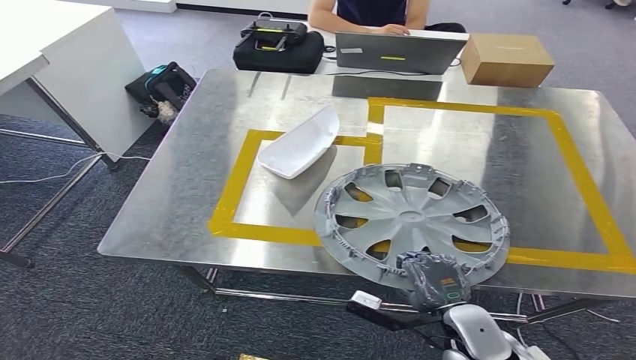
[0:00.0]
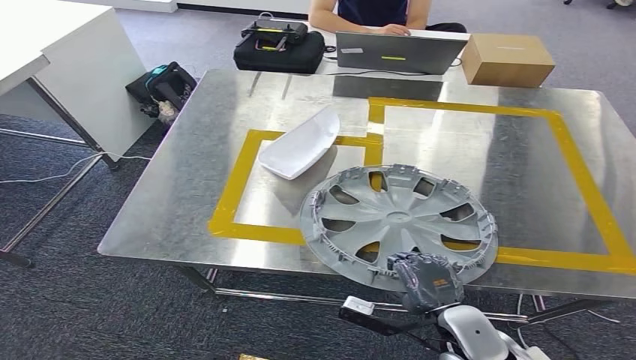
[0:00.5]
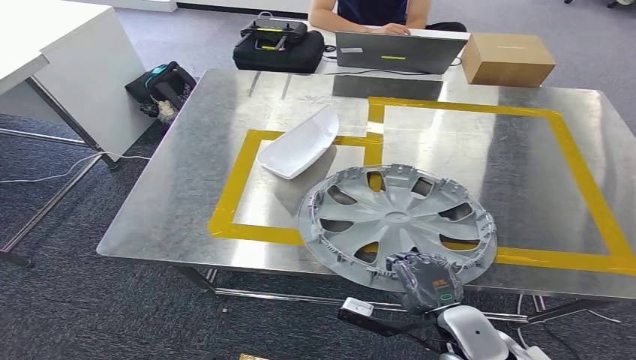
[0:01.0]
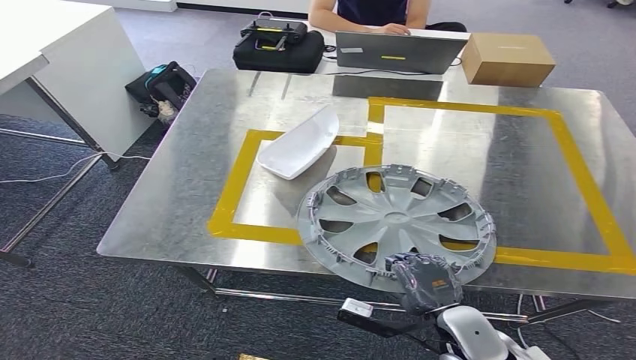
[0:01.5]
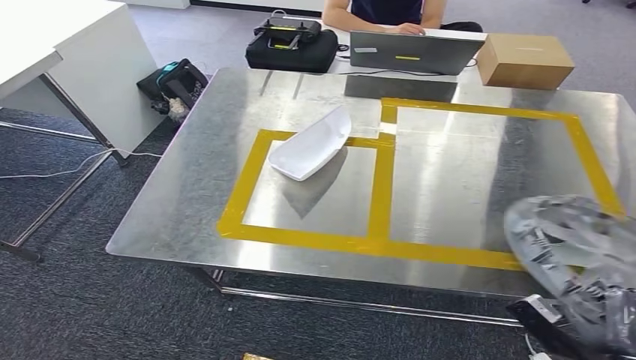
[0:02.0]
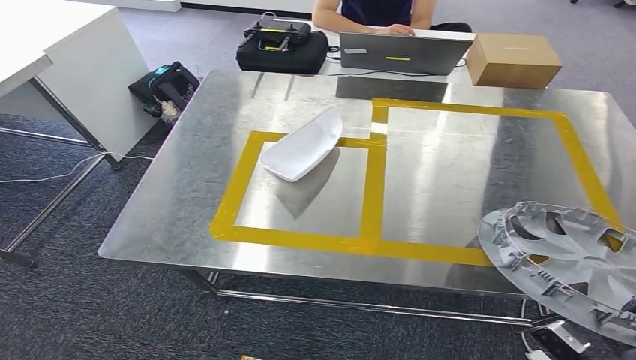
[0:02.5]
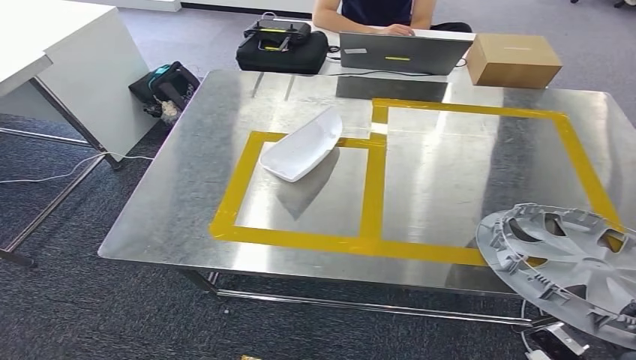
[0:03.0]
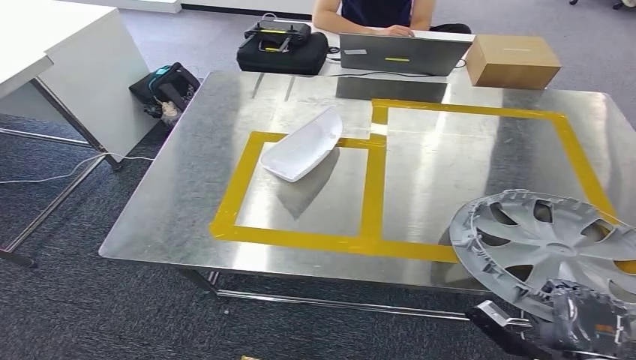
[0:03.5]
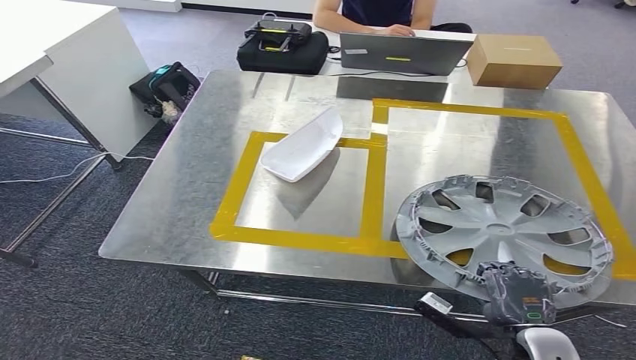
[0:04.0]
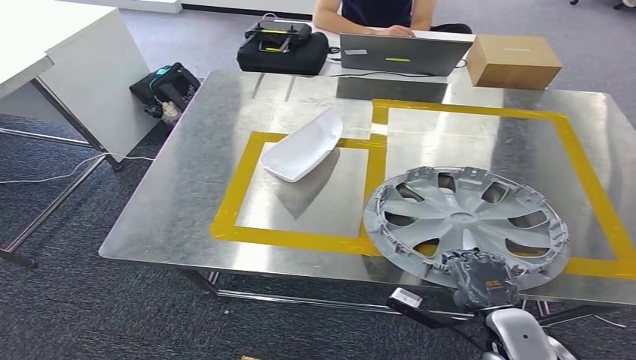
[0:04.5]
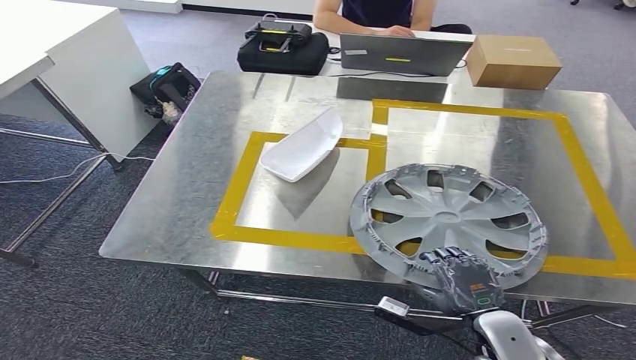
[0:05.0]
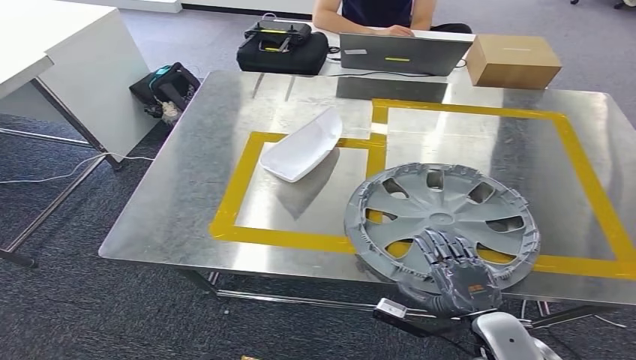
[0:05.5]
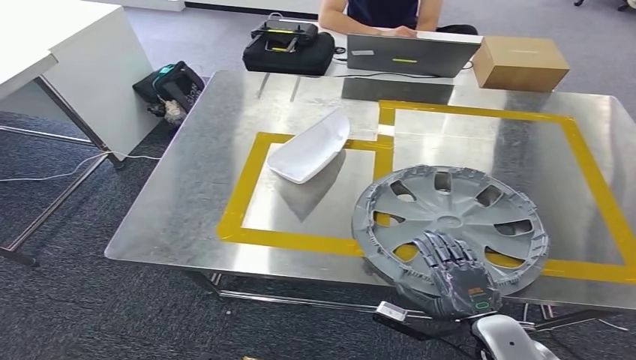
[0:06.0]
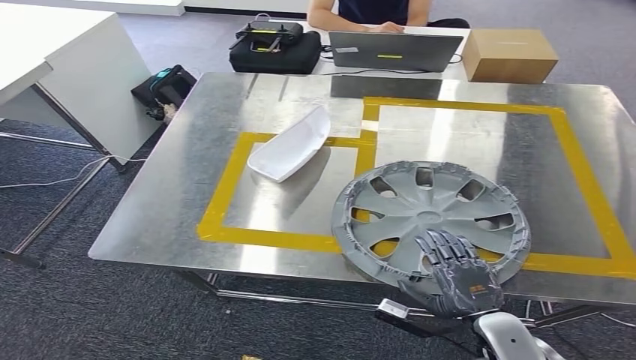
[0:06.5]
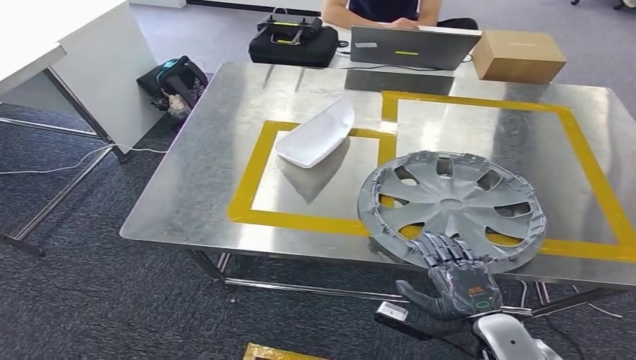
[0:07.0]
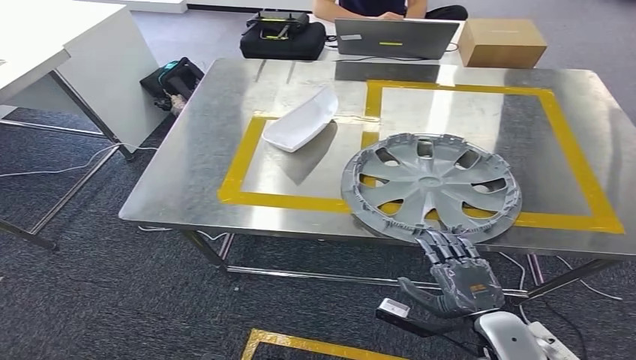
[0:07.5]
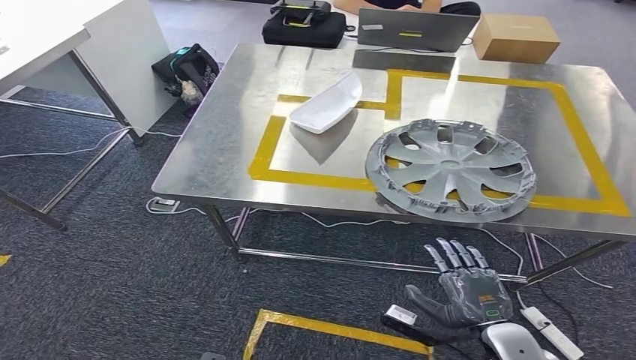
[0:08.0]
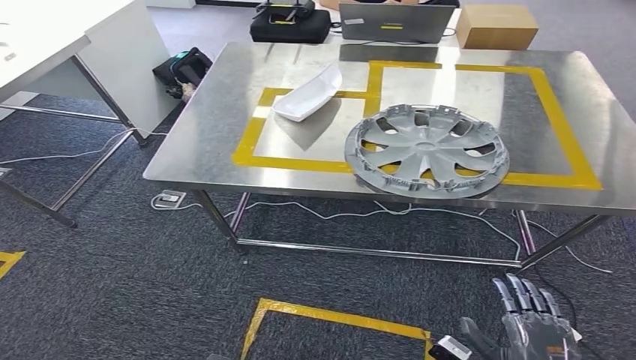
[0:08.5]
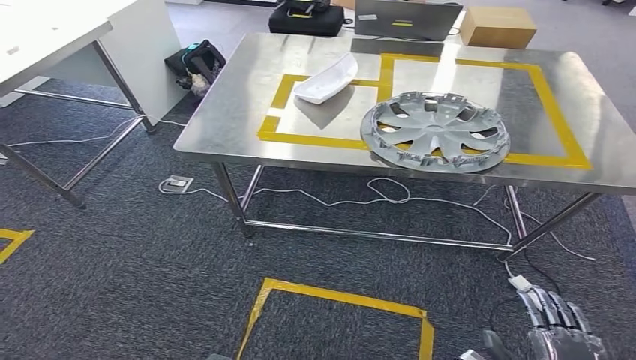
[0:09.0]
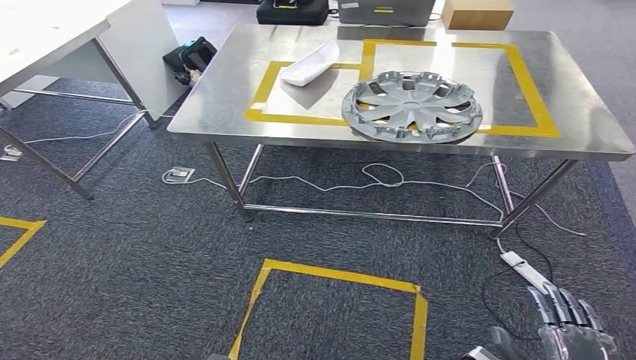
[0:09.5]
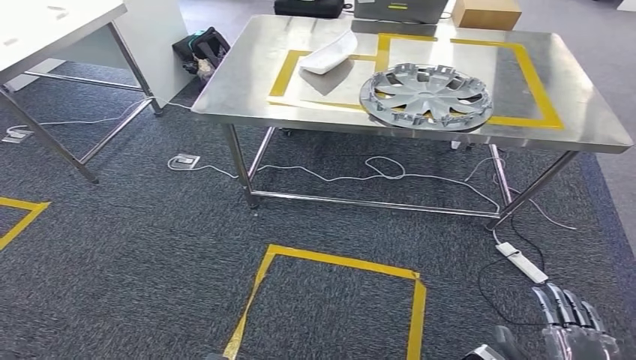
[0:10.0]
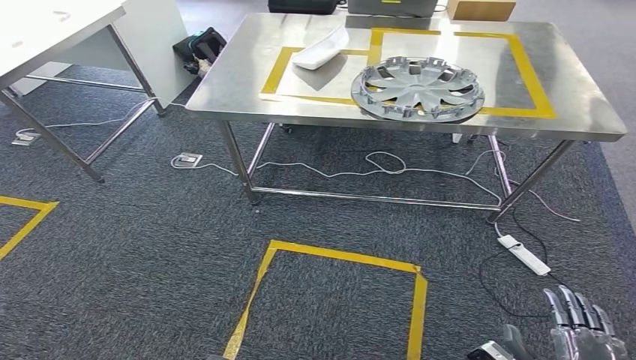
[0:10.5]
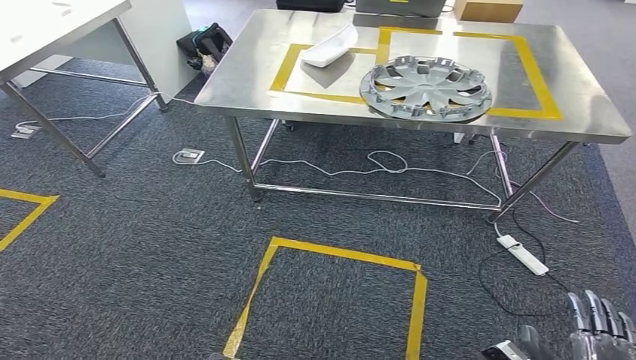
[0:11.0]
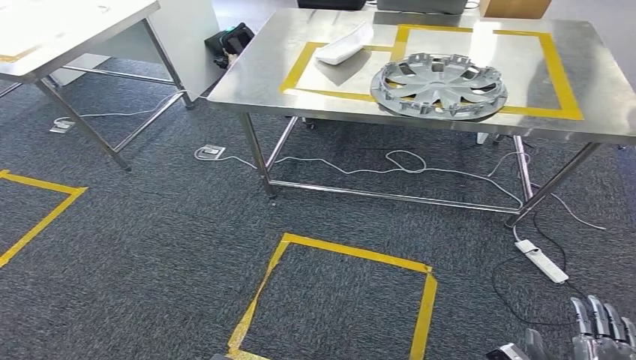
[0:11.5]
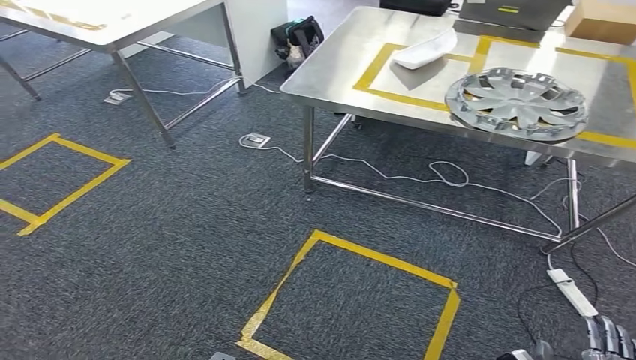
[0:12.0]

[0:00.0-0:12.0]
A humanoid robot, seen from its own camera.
Step, 0:00.0 to 0:07.5: Insert the small parts into the corresponding holes on the workbench.
0:04.0 to 0:06.0: The hands make only small movements.

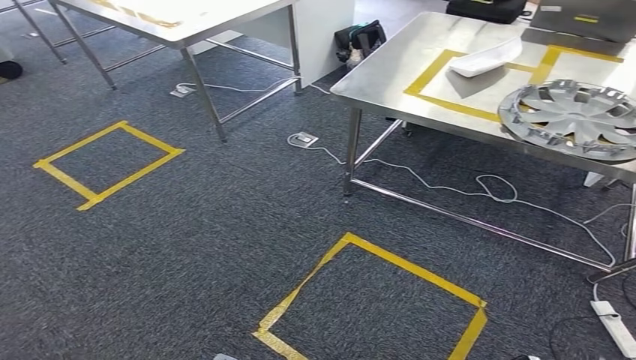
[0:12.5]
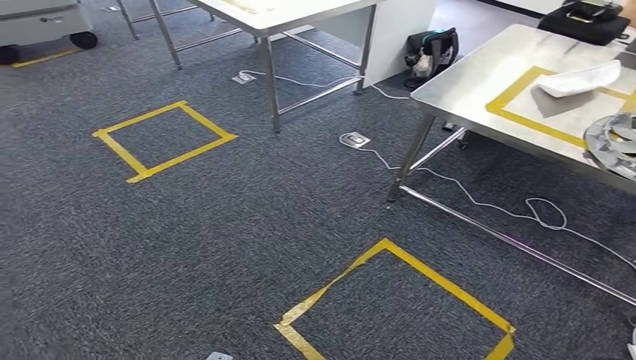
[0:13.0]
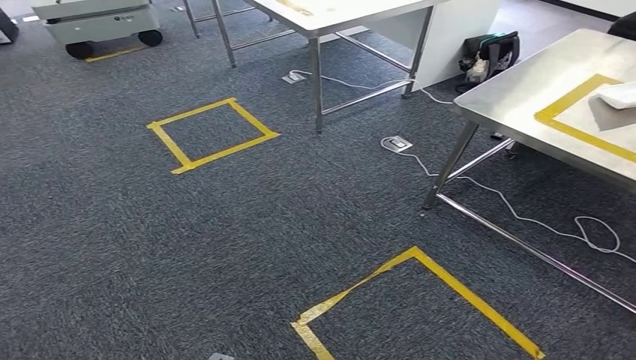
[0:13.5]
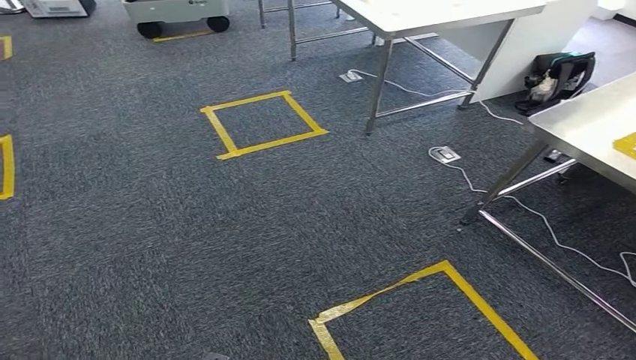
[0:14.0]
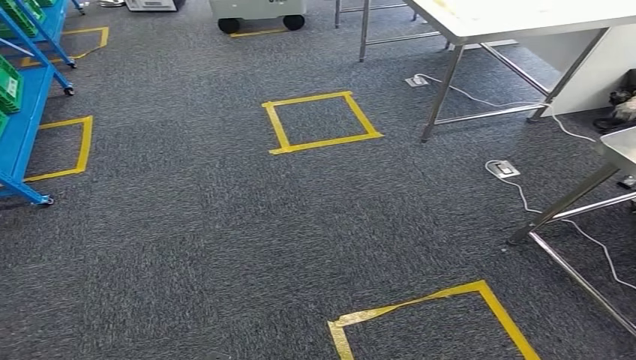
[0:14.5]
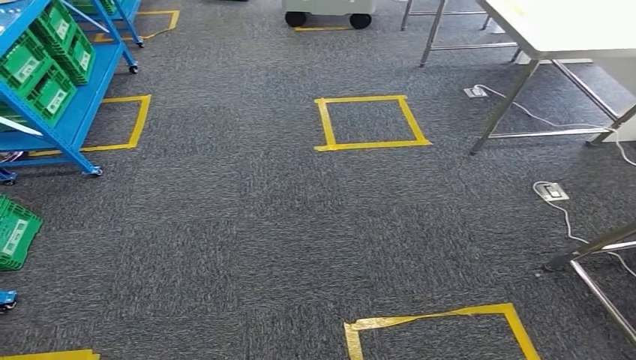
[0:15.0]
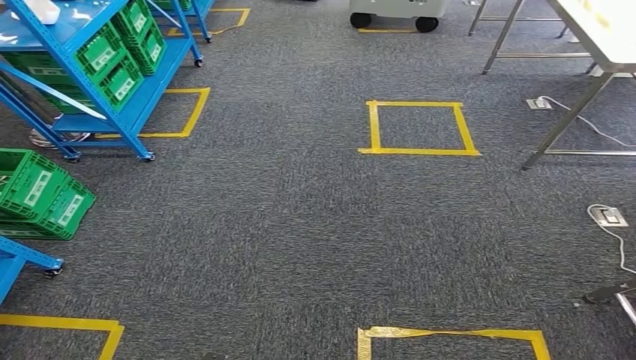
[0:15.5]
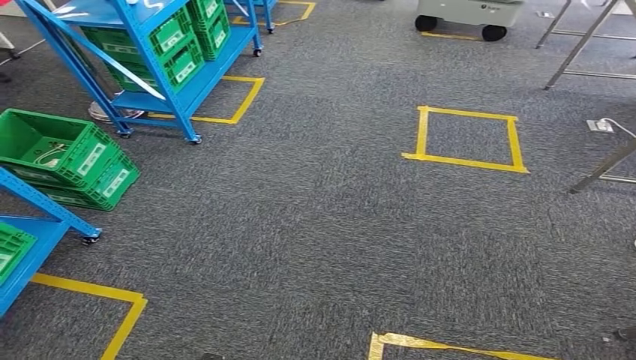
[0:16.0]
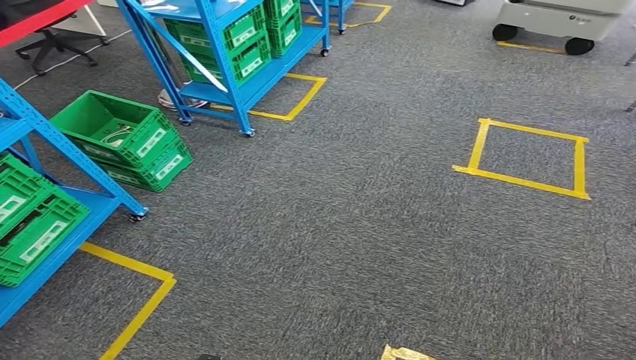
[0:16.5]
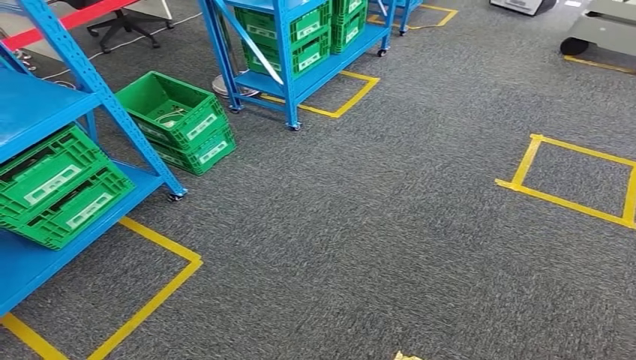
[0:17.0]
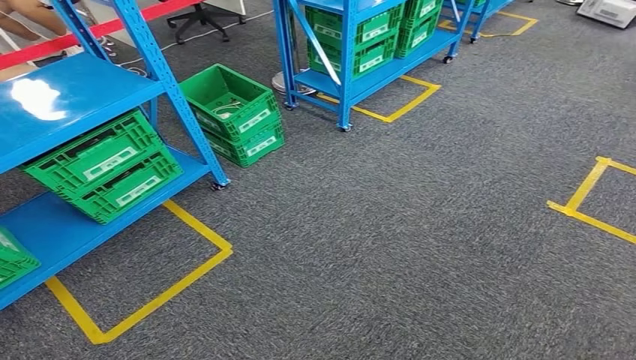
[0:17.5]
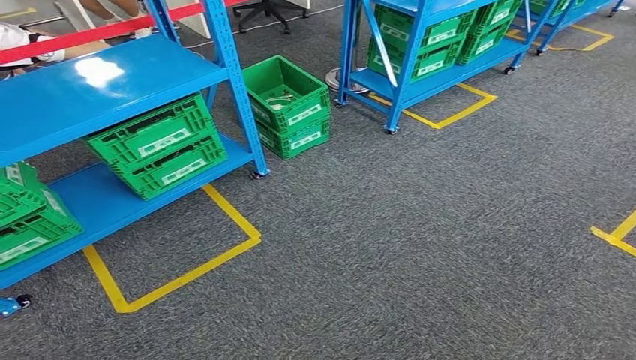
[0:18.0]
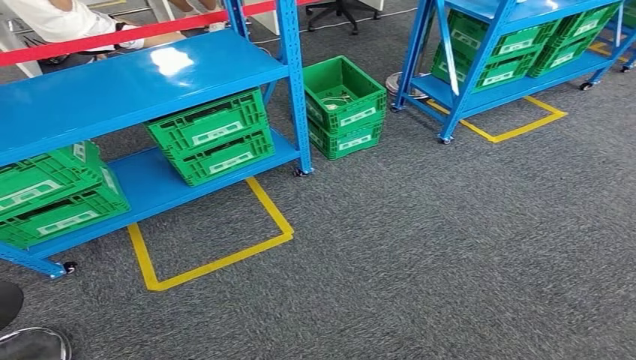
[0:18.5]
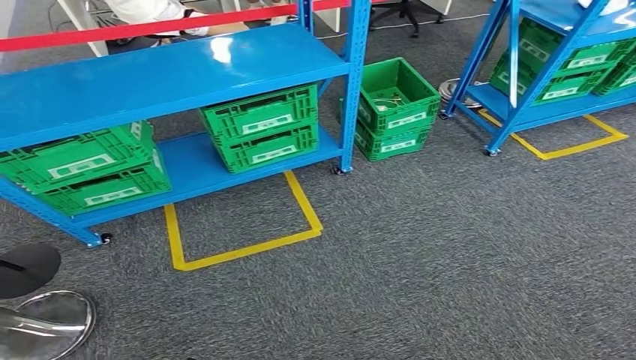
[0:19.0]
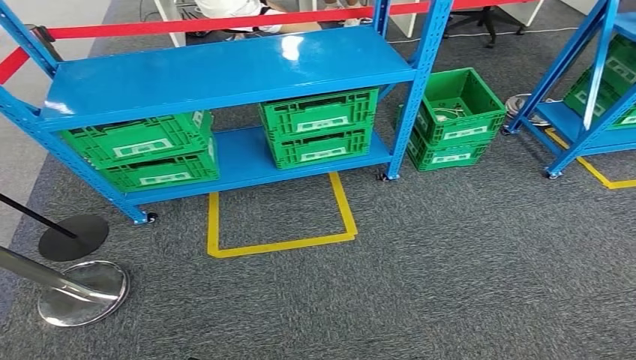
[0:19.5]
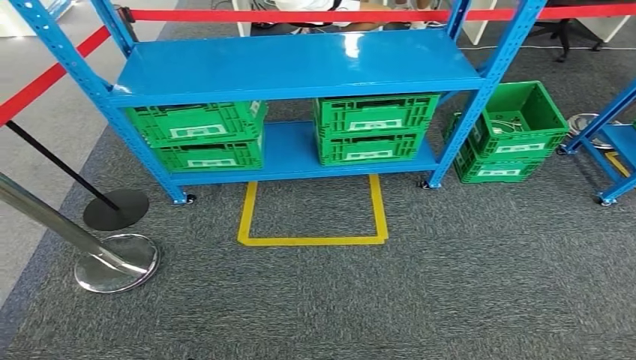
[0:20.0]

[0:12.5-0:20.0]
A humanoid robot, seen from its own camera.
Step, 0:12.5 to 0:20.0: Move to the initial position of the workbench.
